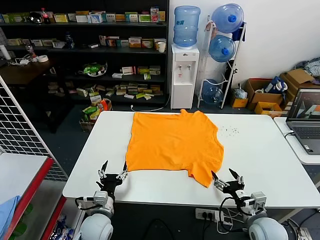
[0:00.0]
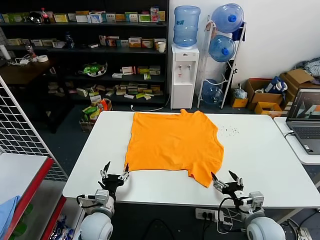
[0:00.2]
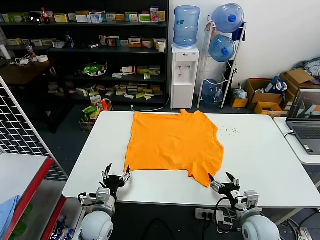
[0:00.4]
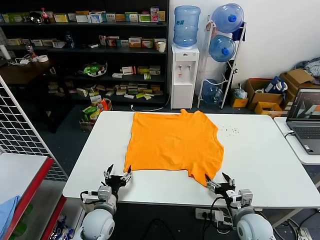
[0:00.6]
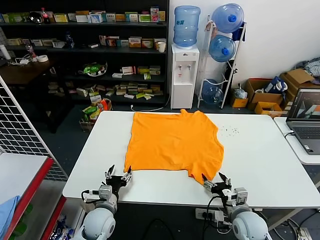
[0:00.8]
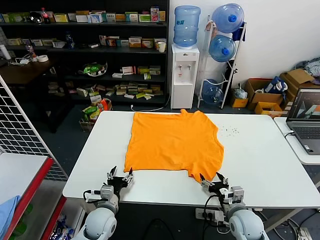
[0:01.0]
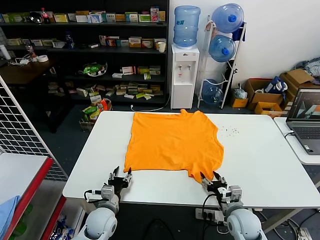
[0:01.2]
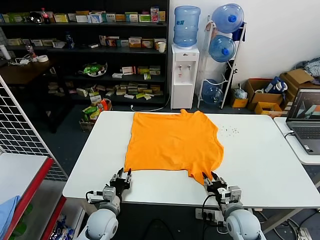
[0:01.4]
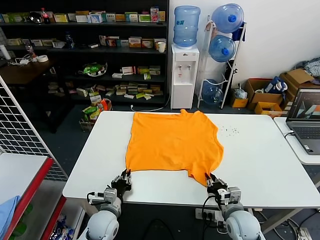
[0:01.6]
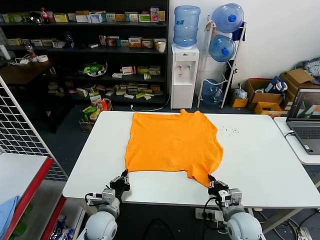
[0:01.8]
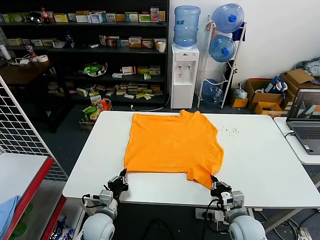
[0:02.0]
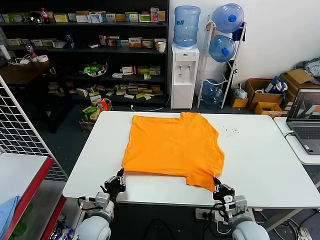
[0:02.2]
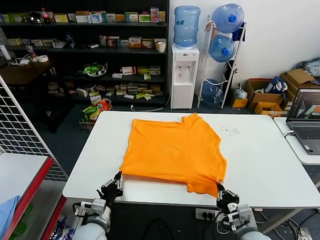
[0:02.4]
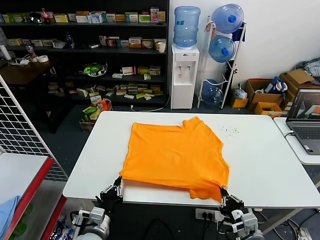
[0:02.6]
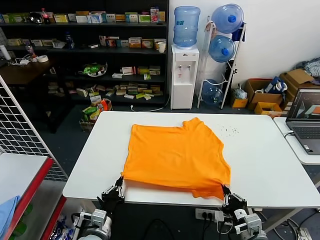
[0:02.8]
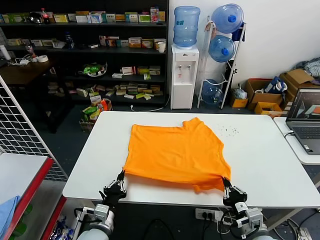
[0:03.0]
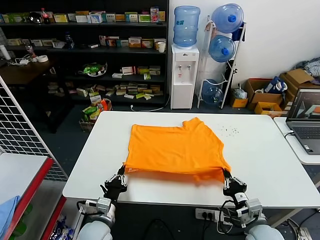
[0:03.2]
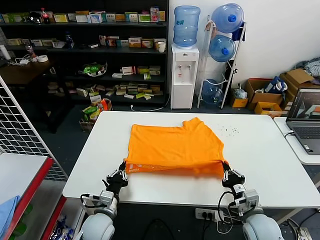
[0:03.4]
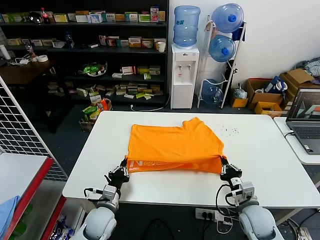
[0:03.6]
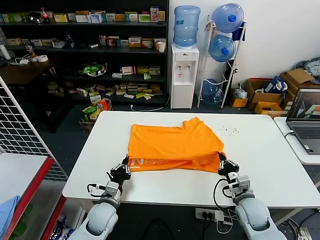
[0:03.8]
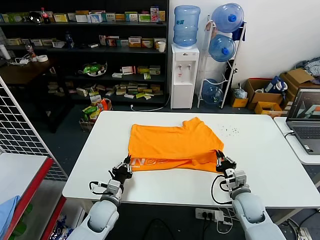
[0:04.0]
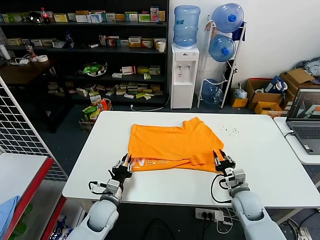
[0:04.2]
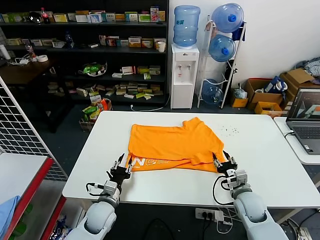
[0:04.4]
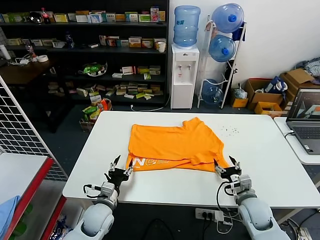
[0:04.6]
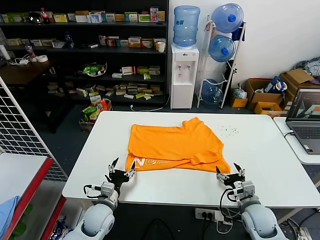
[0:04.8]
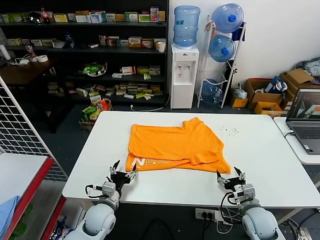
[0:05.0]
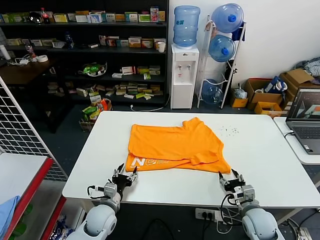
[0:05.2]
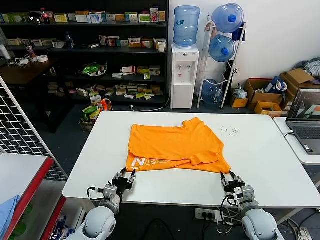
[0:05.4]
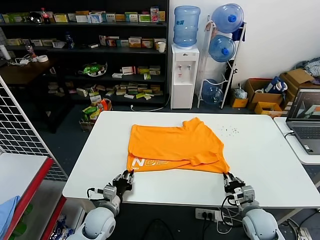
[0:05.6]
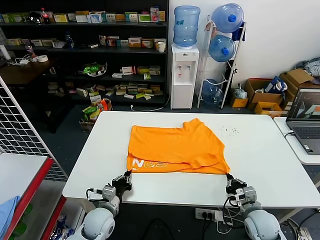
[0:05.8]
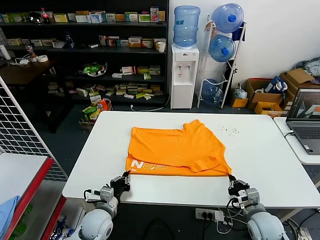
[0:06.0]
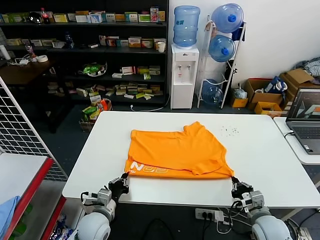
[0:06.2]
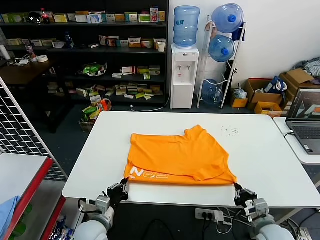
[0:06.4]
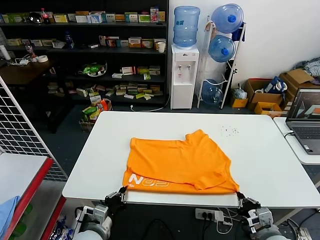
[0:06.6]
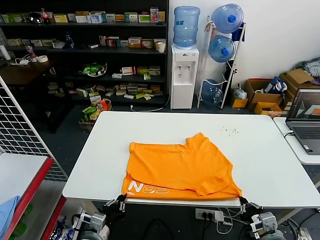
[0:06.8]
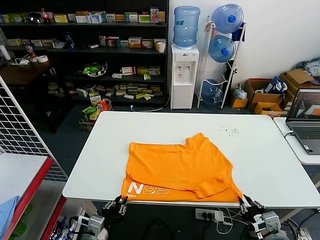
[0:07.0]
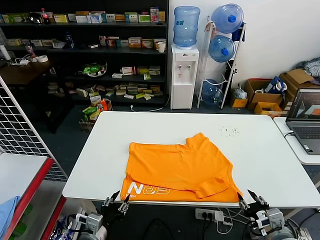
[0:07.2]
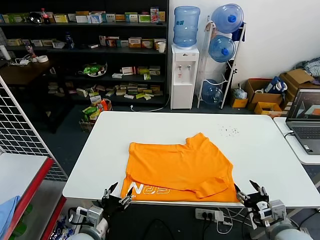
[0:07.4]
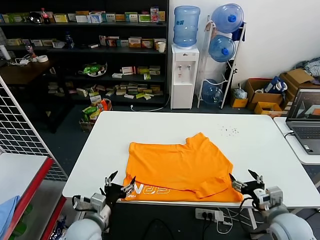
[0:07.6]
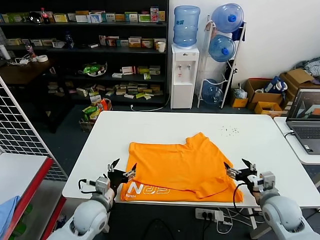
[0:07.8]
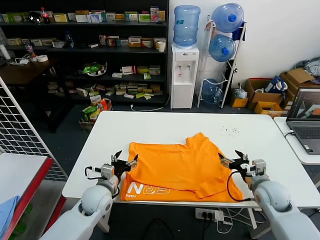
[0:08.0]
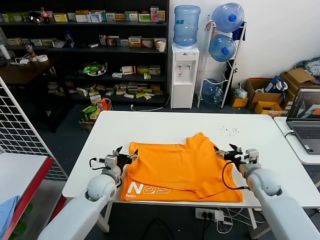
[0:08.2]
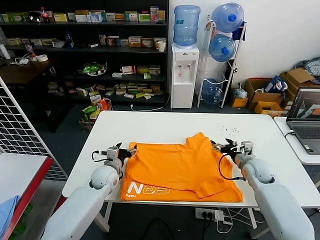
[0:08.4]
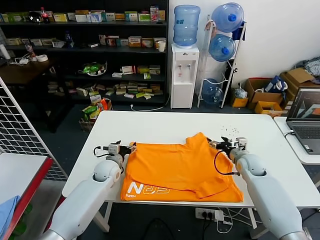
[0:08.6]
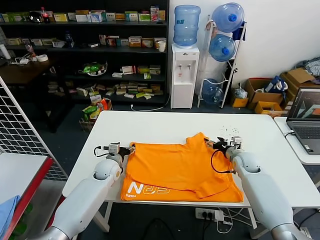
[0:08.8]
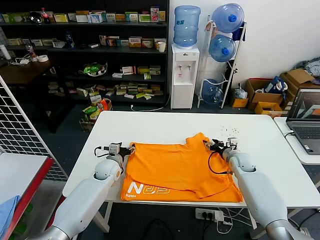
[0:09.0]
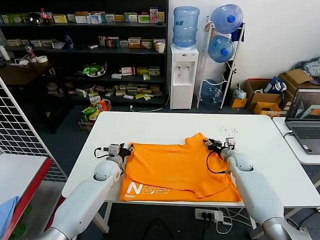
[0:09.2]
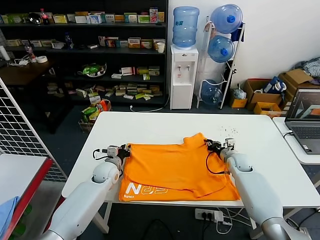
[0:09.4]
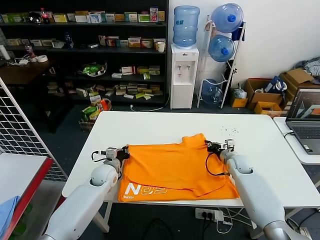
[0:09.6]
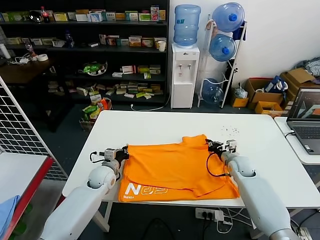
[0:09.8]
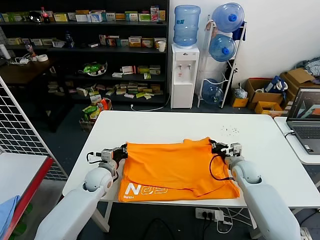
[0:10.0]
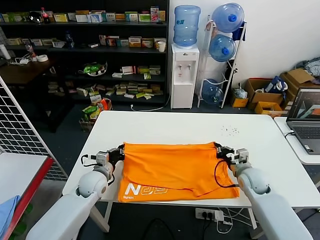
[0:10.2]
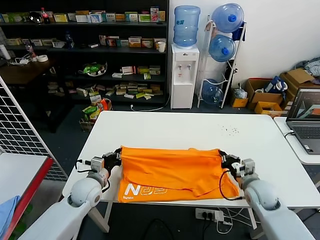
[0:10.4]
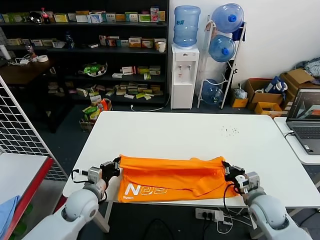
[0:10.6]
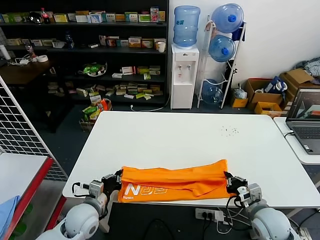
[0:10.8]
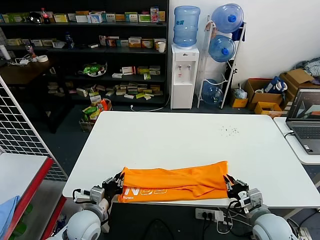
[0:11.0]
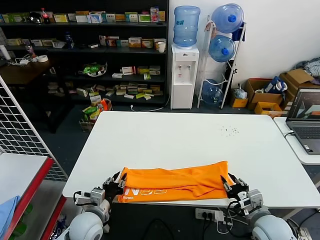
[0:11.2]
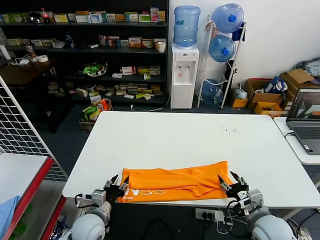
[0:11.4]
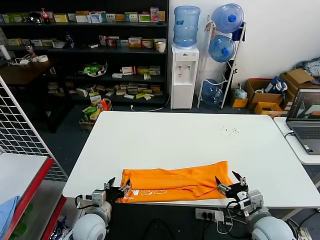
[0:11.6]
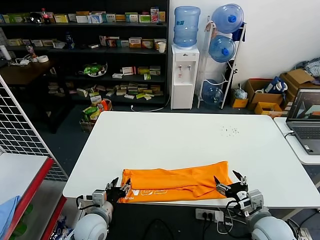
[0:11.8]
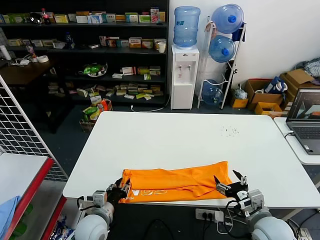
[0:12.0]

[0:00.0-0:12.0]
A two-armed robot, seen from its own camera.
Task of the whole recording: fold and organize the clothes.
Step, 0:00.0 to 0:01.8: use both grippers simultaneously to clamp the lower edge of the clothing fabric.
Step, 0:02.0 to 0:04.2: use both grippers to drag the lower edge of the fabric forward and fold it over the upper edge.
Step, 0:04.4 to 0:06.8: Drag the clothes downward with both gripper.
Step, 0:07.2 to 0:09.6: use both grippers simultaneously to clamp the upper edge of the clothing fabric.
Step, 0:09.8 to 0:11.0: use both grippers to drag the upper edge of the fabric backward and fold it over the lower edge.
0:01.6 to 0:03.0: The left gripper moves backward, approximately 5 cm. The right gripper moves backward and upward, about 10 cm.
0:03.0 to 0:04.4: Both grippers move forward, approximately 10 cm. The right gripper opens. The left gripper opens.
0:04.4 to 0:06.0: The right gripper is displaced backward by approximately 5 cm, and closes; the left gripper closes its fingers.
0:06.0 to 0:07.6: The left gripper is displaced upward and backward by some 10 cm, and opens its fingers. The right gripper heads upward, covering about 5 cm, moves some 10 cm backward and comes back, and opens its fingers.
0:07.6 to 0:09.0: Both grippers travel together forward, about 25 cm.
0:09.0 to 0:10.4: Both grippers move backward, about 15 cm. The right gripper closes up, while the left gripper closes.
0:10.4 to 0:12.0: The grippers both shift backward by some 10 cm. The right gripper opens up. Meanwhile the left gripper opens its fingers.

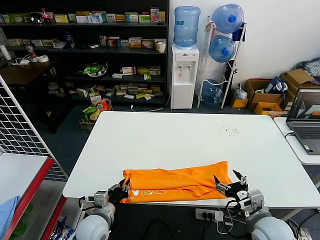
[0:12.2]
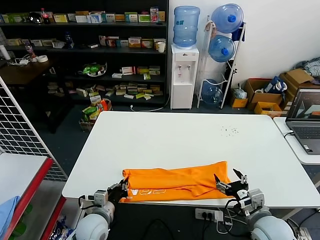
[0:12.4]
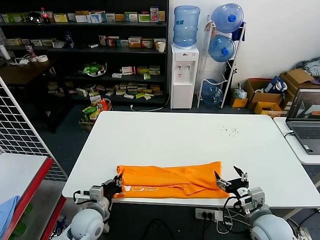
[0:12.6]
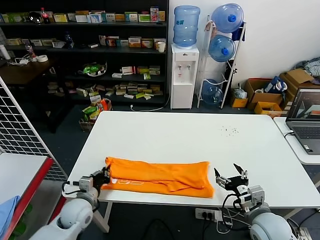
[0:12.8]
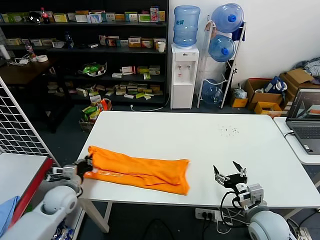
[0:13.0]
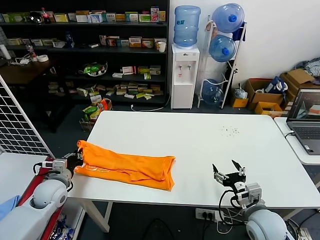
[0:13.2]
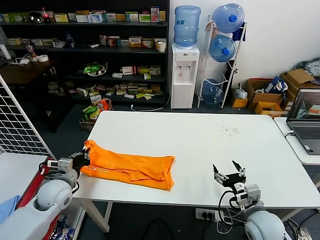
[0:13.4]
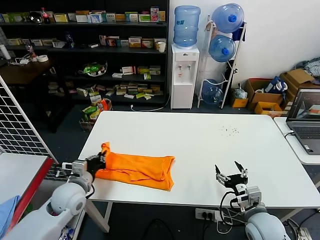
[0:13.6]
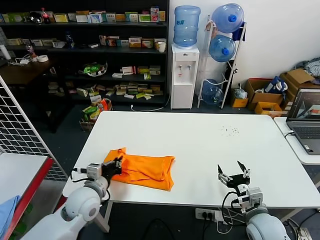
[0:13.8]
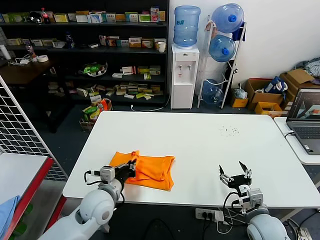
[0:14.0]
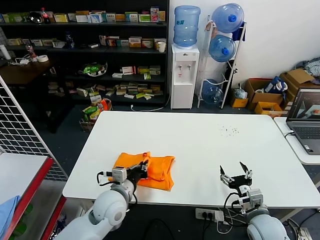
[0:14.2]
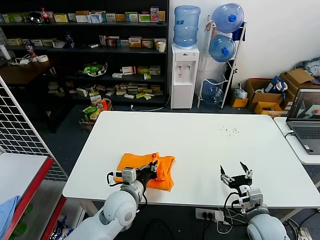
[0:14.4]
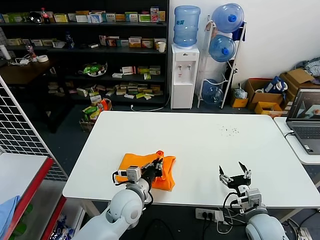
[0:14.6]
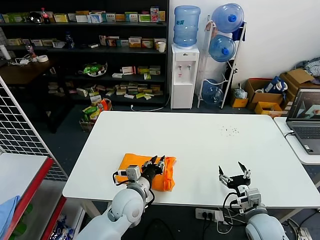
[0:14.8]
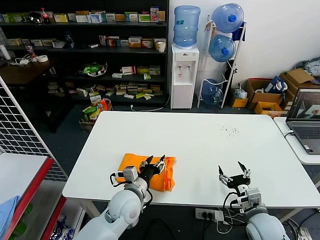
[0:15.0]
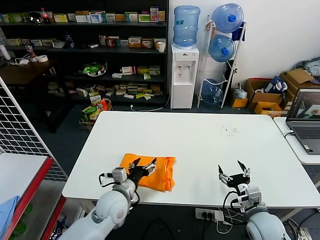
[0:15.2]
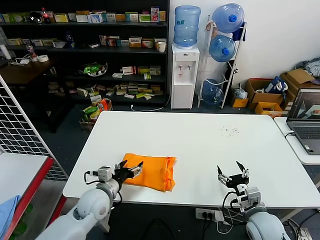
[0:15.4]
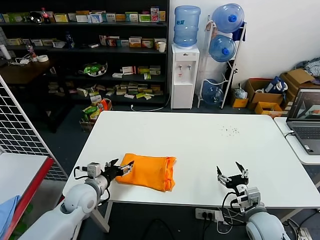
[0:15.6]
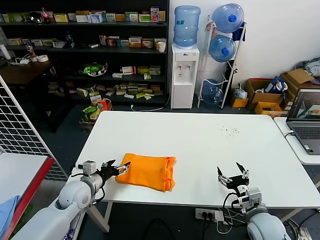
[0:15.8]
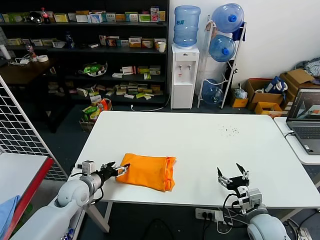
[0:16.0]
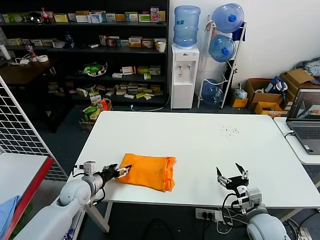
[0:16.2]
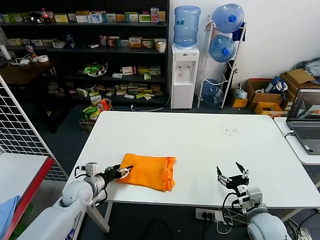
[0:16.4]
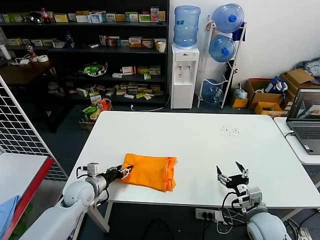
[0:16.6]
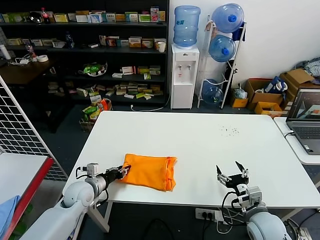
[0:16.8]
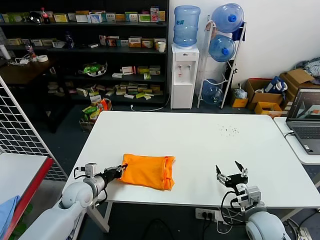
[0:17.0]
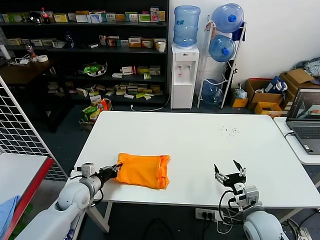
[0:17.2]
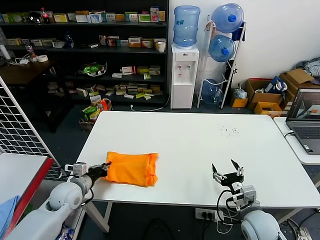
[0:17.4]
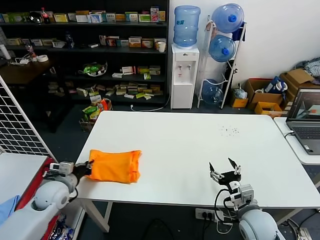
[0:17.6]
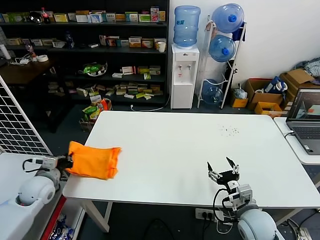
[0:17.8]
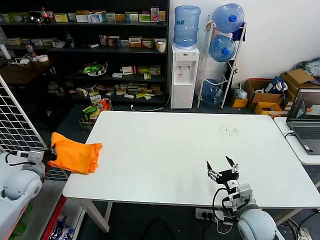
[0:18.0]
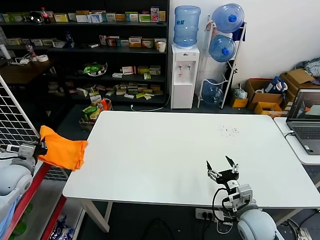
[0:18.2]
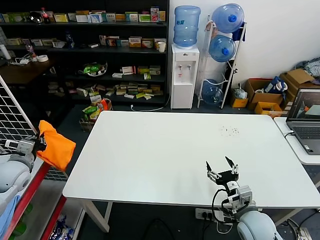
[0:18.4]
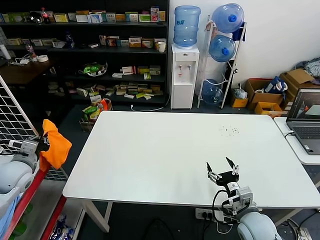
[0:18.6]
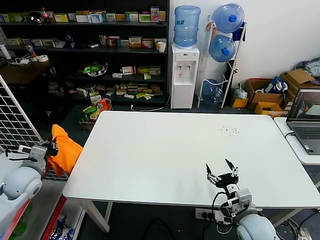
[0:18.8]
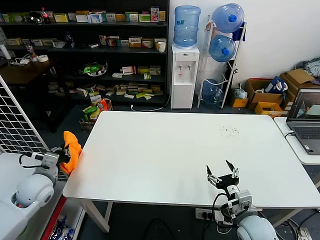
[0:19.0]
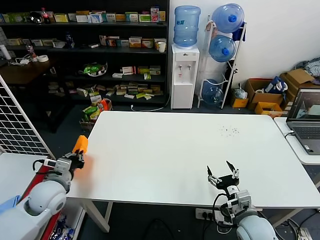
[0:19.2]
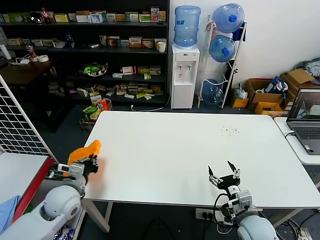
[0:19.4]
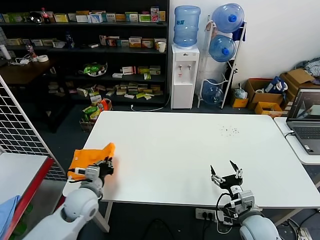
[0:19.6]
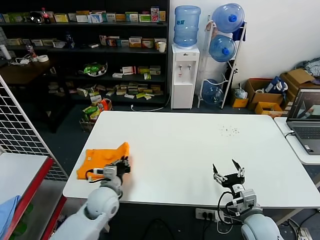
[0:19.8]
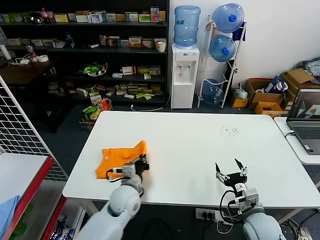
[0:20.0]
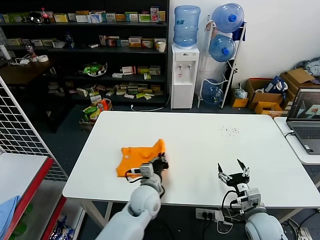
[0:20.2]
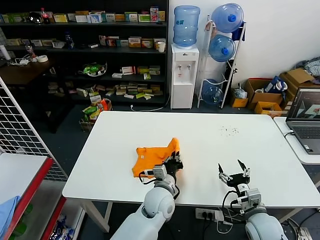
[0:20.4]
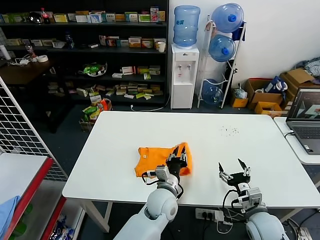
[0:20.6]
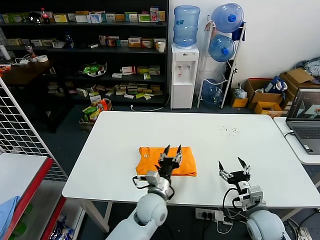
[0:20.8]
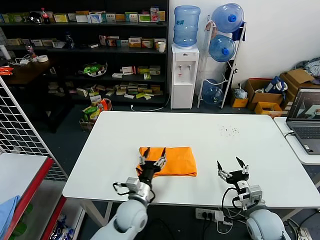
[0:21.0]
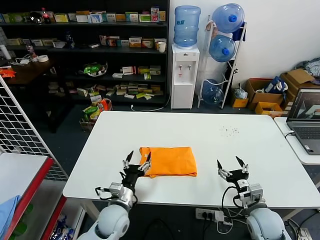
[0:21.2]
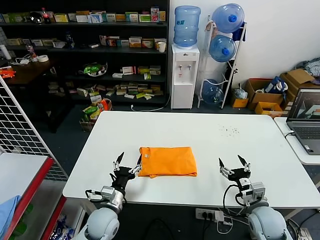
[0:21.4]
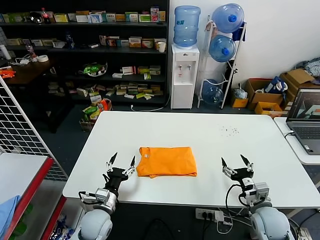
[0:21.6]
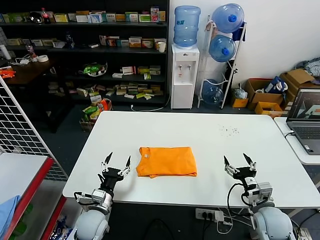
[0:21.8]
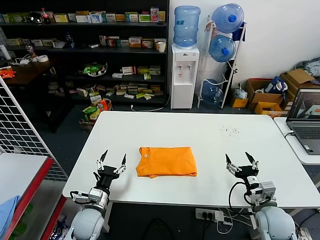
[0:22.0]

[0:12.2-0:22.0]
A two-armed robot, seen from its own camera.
Task of the whole recording: fold and organize the clothes.
Step, 0:12.6 to 0:14.6: use the left gripper to drag the left edge of the fabric to the left and folds it over the right edge.
Step, 0:14.8 to 0:20.4: Flip the folded clothes over with left gripper.
0:12.2 to 0:13.6: The left gripper moves upward, to the left and forward, approximately 15 cm.
0:13.6 to 0:15.0: The left gripper is displaced to the right by about 20 cm, and opens its fingers.
0:15.0 to 0:16.4: The left gripper heads to the left, covering roughly 20 cm.
0:16.4 to 0:17.8: The left gripper shifts some 10 cm to the left and upward, and closes its fingers.
0:19.2 to 0:20.6: The left gripper moves to the right, about 35 cm.
0:20.6 to 0:22.0: The left gripper goes about 25 cm to the left, and opens its fingers.
